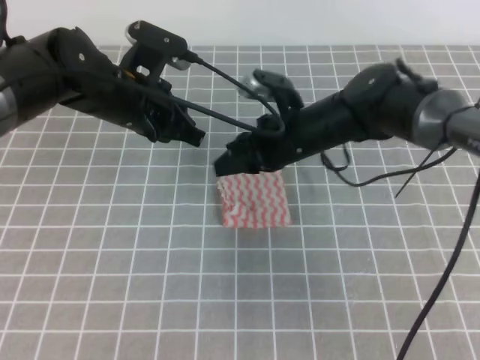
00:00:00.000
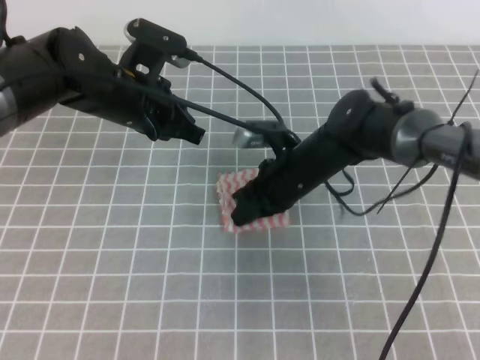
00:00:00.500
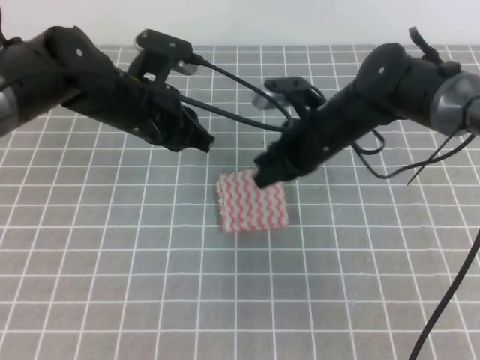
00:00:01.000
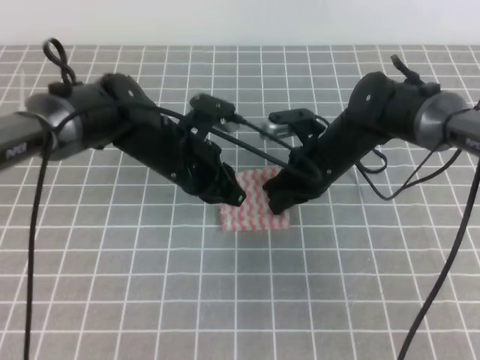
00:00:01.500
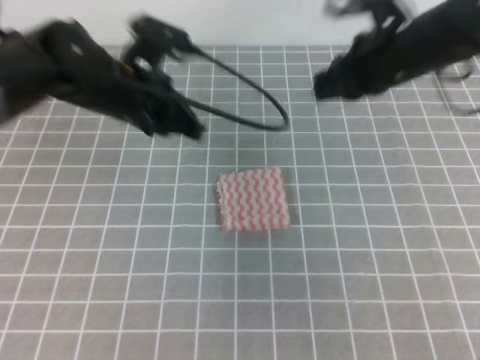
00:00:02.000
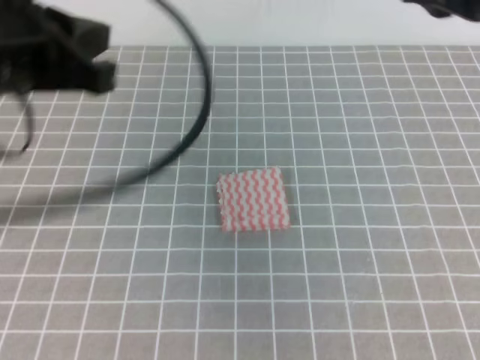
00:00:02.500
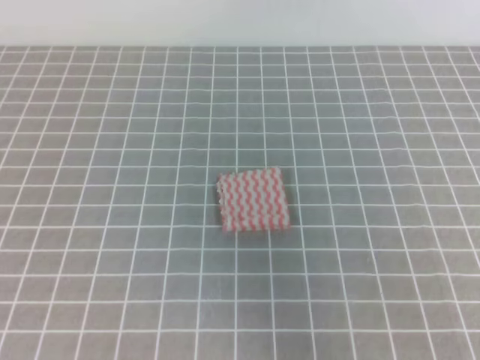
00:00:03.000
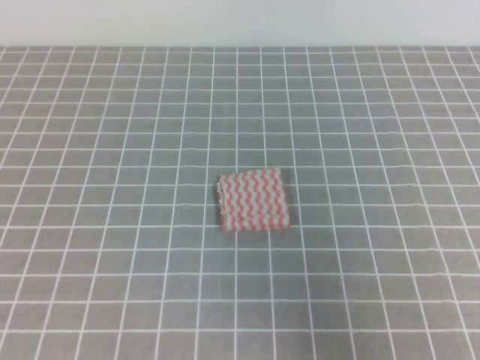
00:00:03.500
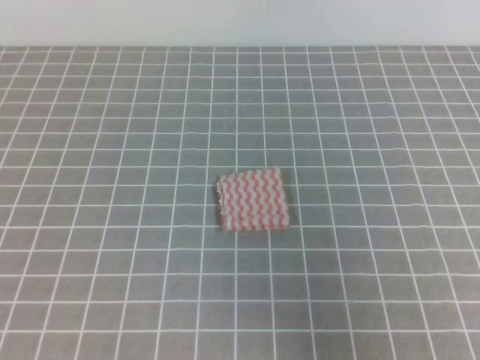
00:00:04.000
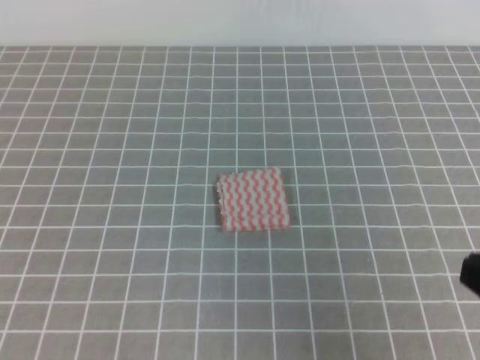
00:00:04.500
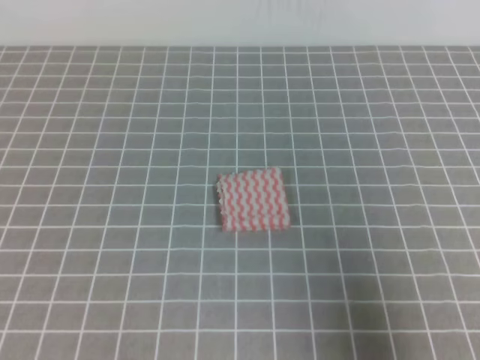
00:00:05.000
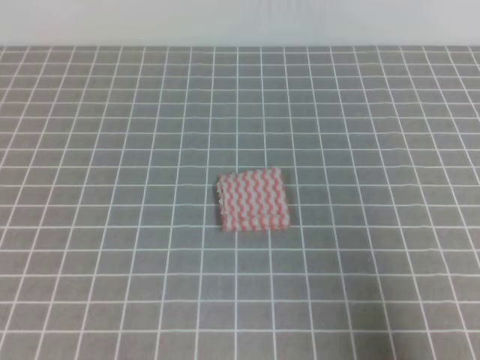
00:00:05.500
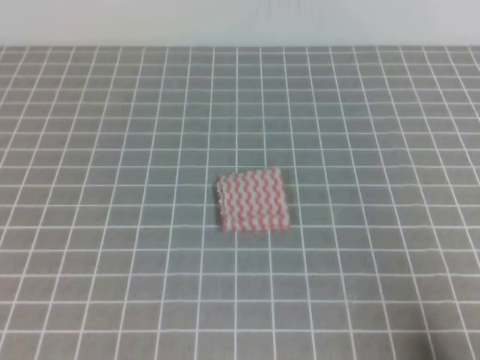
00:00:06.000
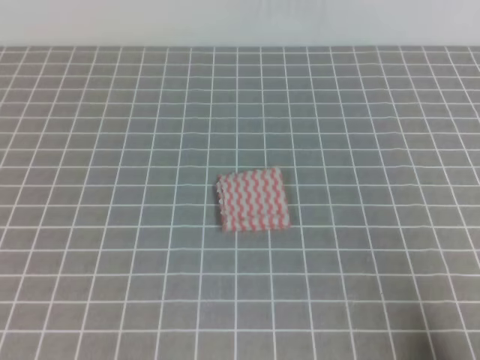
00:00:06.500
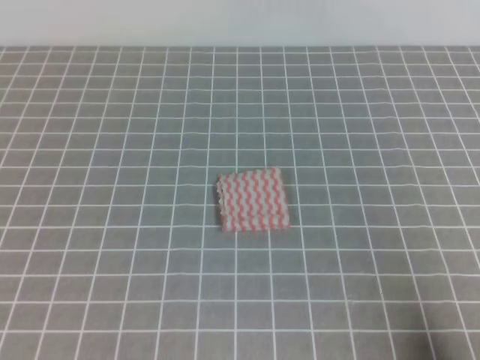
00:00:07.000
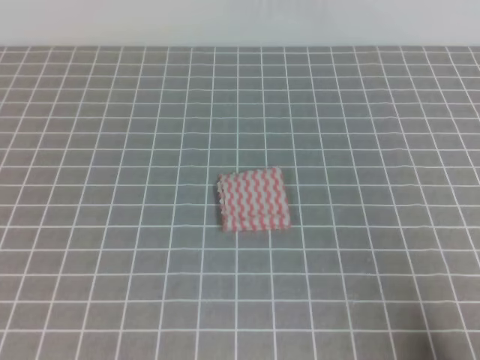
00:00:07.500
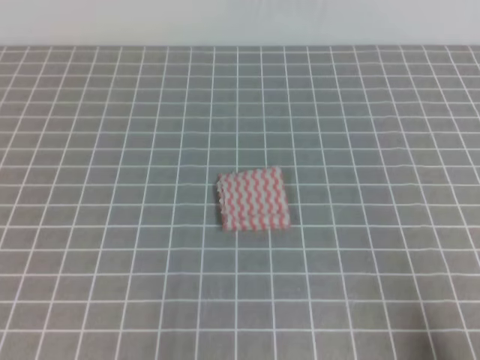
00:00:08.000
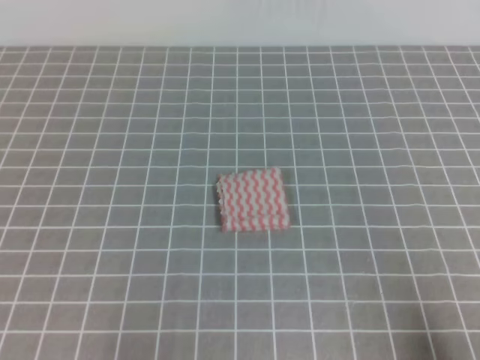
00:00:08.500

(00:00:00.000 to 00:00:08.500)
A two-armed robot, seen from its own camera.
00:00:00.000 - 00:00:02.000: The right gripper shifts about 15 cm upward and to the right, and closes its fingers; the left gripper goes downward and returns, about 5 cm each way.
00:00:02.000 - 00:00:04.000: The left gripper moves backward and to the left, some 35 cm, while the right gripper is displaced backward by about 30 cm.
00:00:04.000 - 00:00:06.500: The right gripper shifts about 15 cm downward.

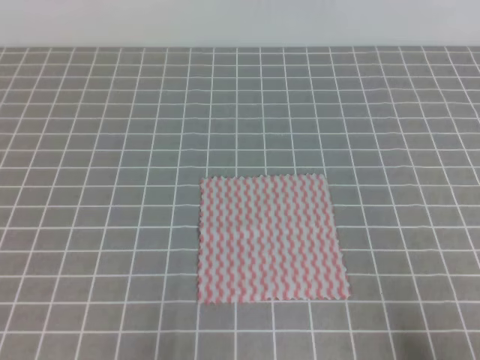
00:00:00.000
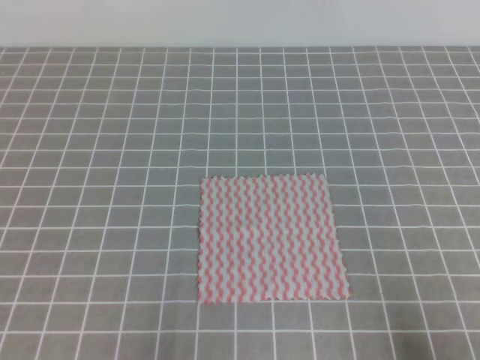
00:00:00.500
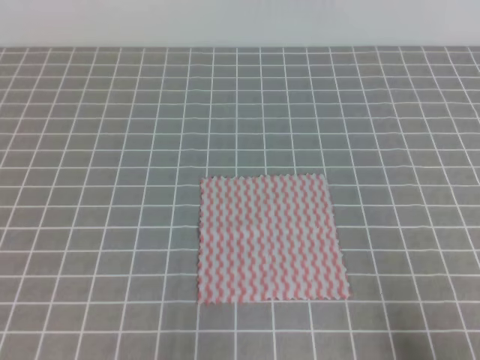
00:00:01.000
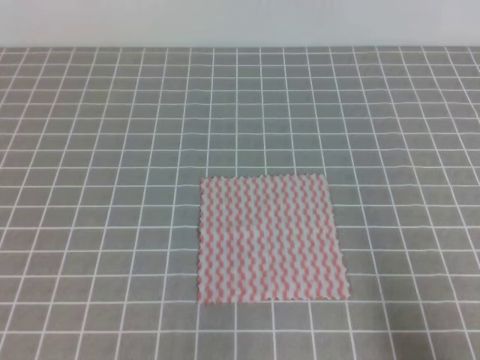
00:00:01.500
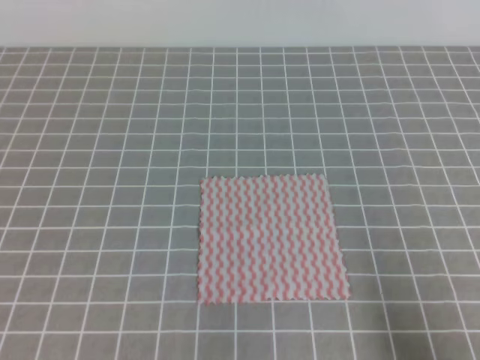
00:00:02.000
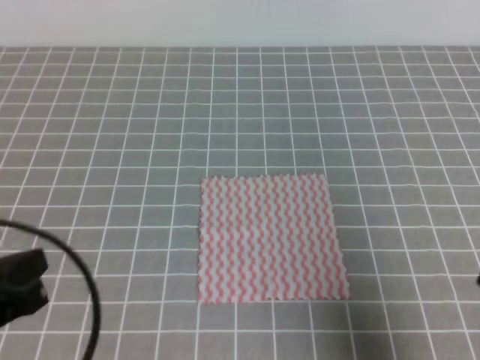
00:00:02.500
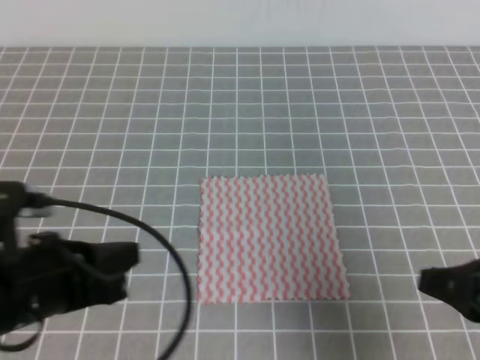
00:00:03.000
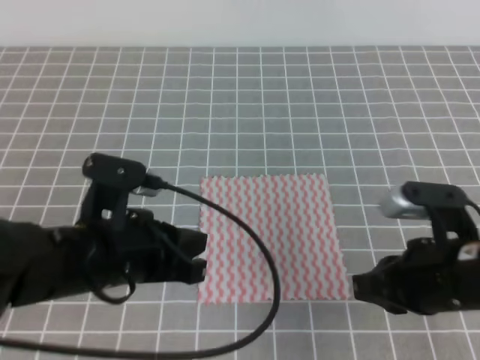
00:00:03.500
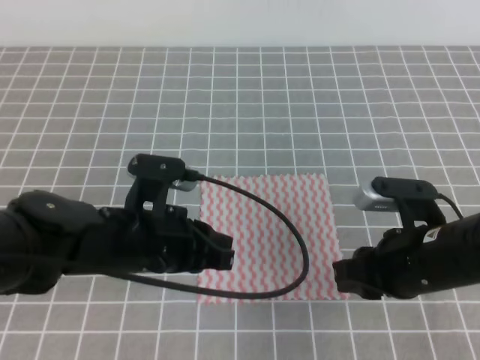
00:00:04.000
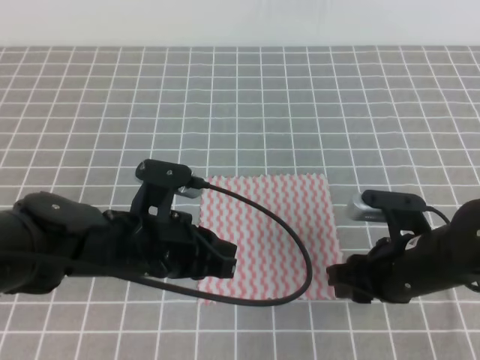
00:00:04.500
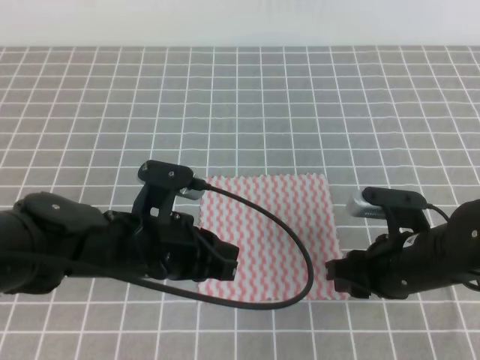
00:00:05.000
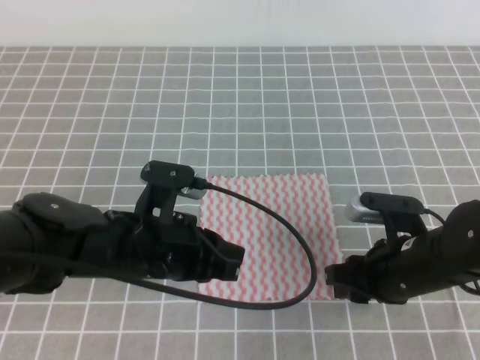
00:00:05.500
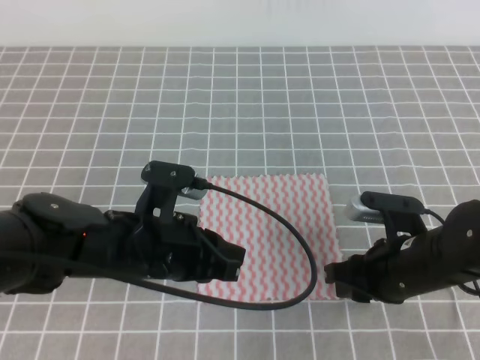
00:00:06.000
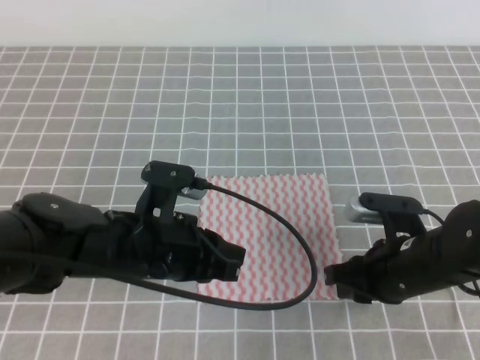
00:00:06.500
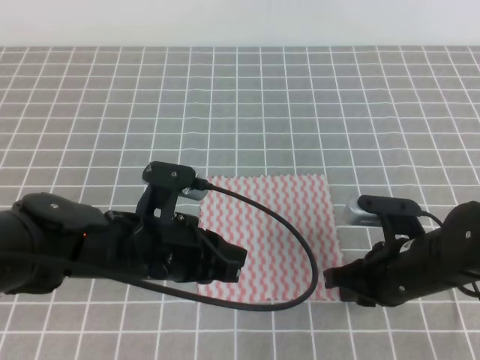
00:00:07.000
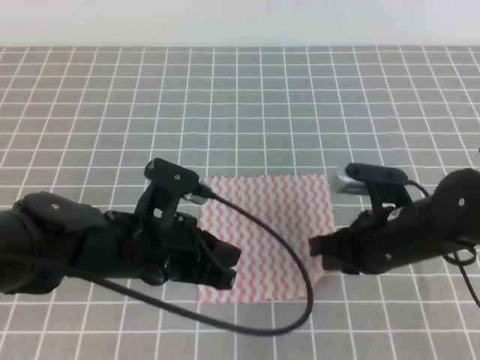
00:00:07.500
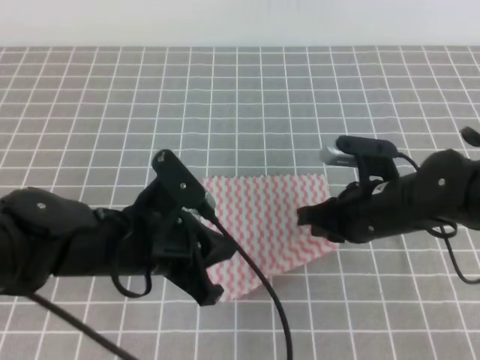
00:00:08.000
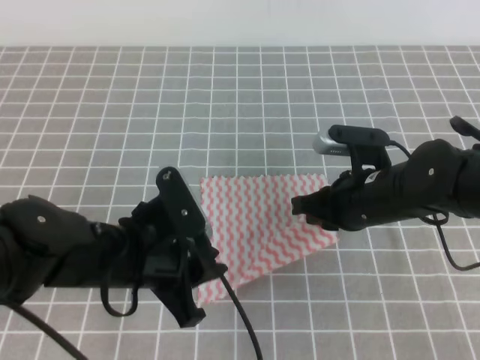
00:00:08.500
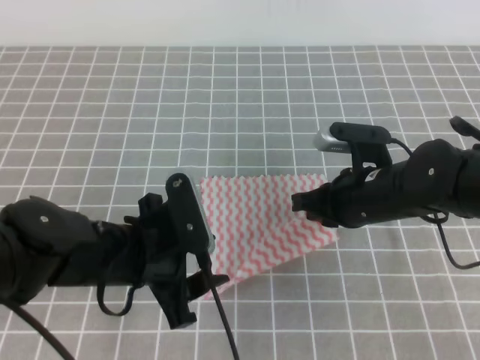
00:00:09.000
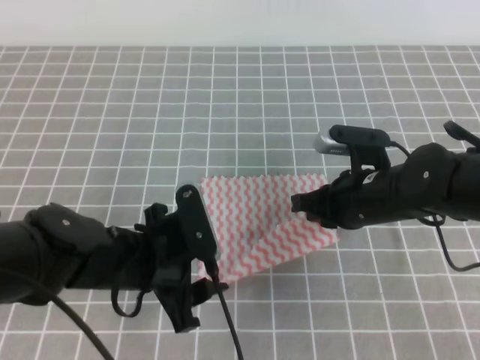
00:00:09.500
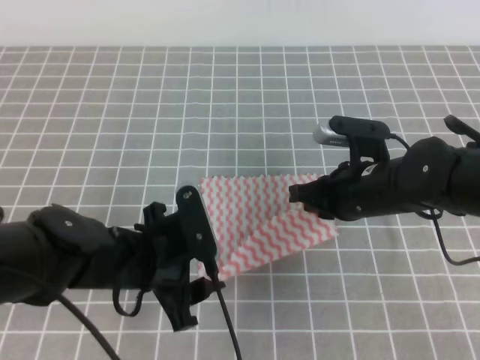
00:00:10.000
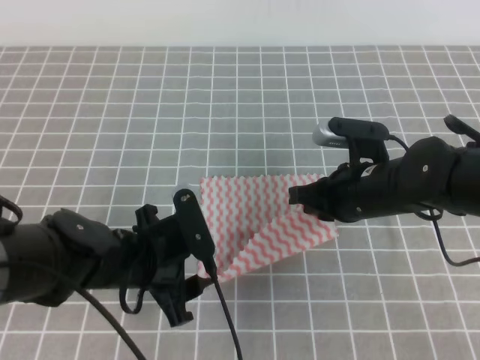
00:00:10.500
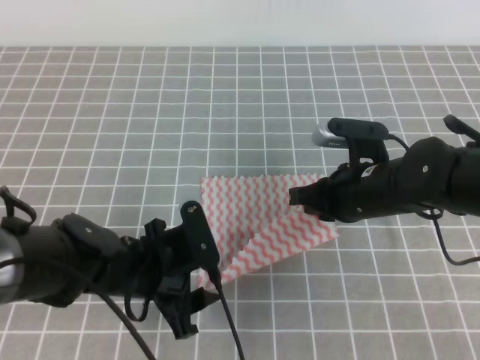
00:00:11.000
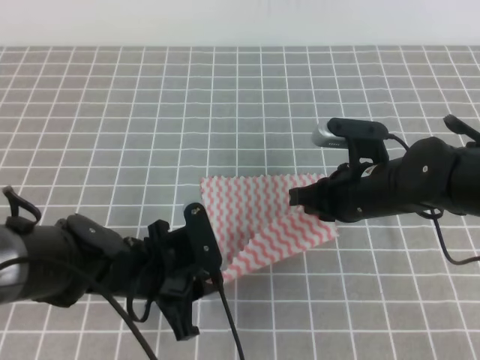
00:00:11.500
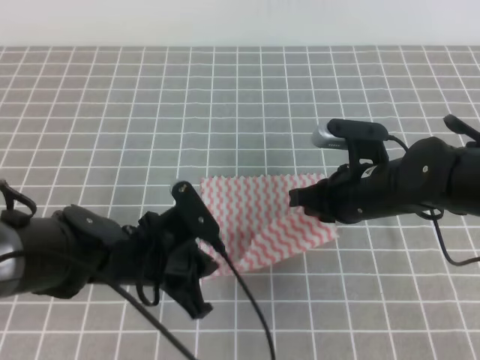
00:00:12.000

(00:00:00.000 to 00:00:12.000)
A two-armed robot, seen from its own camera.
00:00:02.000 - 00:00:04.000: The right gripper is displaced forward and to the left by some 20 cm, and opens its fingers; the left gripper shifts approximately 25 cm forward and to the right.
00:00:04.000 - 00:00:06.000: The right gripper changes place by roughly 5 cm.
00:00:06.000 - 00:00:08.000: The right gripper moves roughly 5 cm, and closes up.
00:00:08.000 - 00:00:10.000: The left gripper opens its fingers.
00:00:10.000 - 00:00:12.000: The left gripper closes.

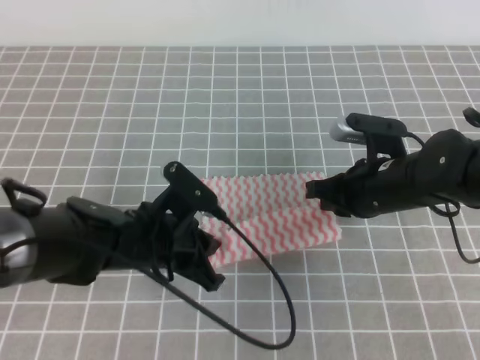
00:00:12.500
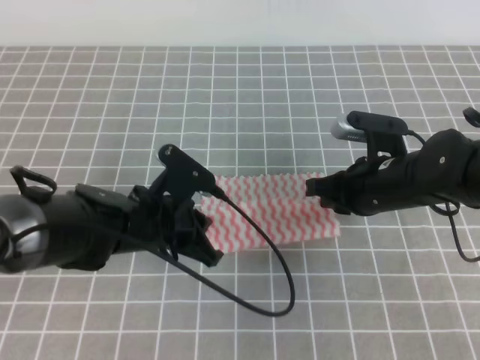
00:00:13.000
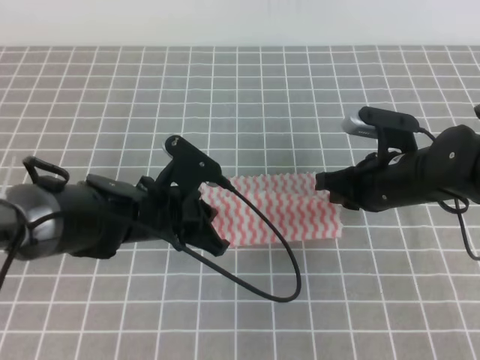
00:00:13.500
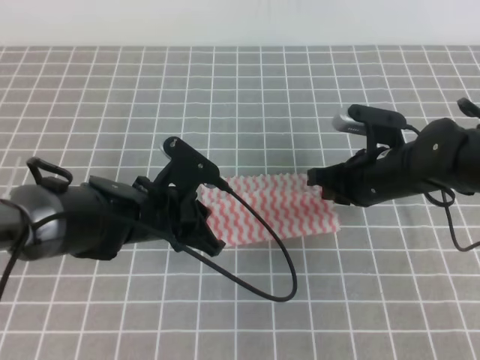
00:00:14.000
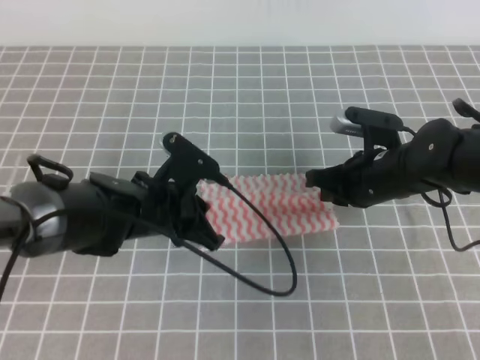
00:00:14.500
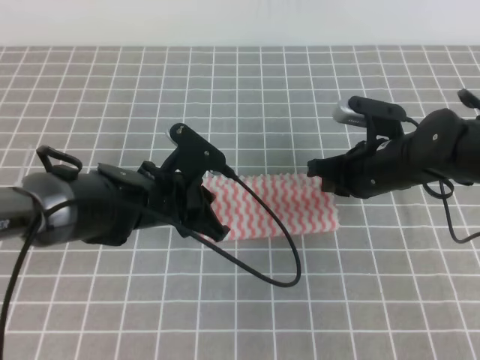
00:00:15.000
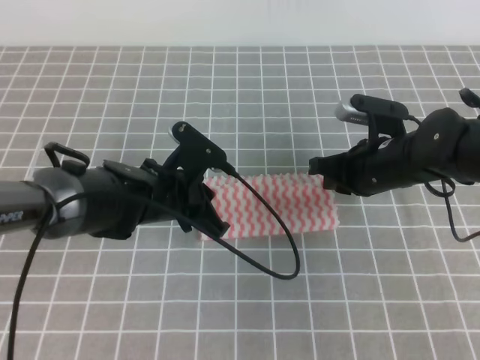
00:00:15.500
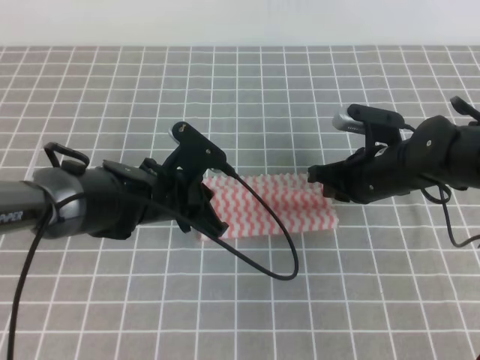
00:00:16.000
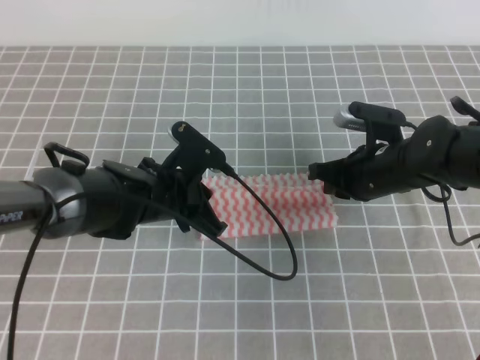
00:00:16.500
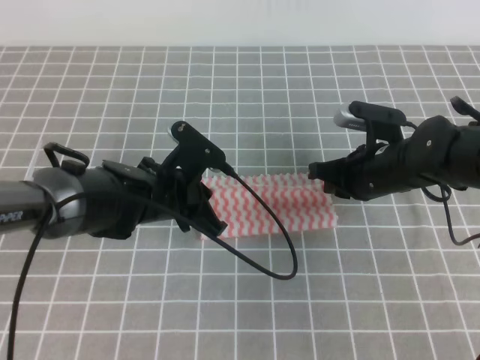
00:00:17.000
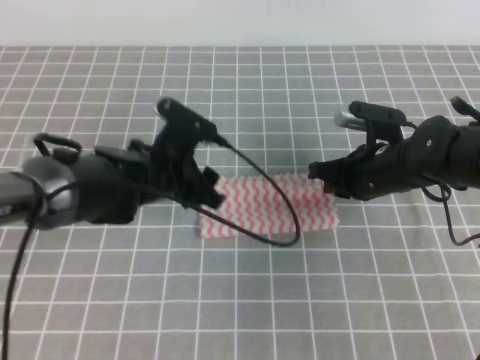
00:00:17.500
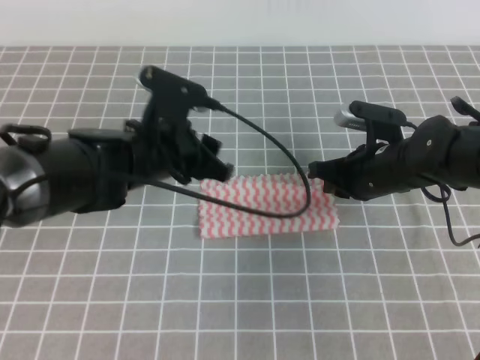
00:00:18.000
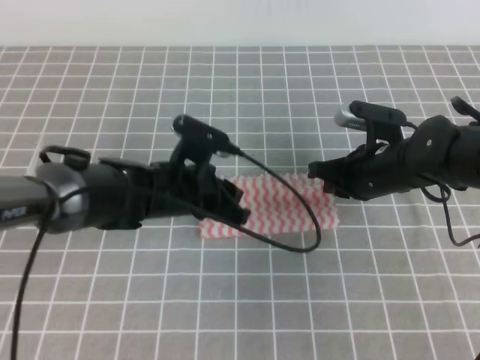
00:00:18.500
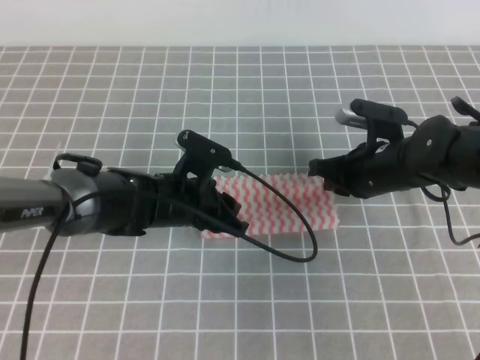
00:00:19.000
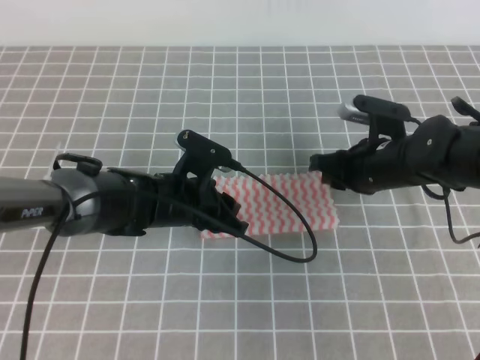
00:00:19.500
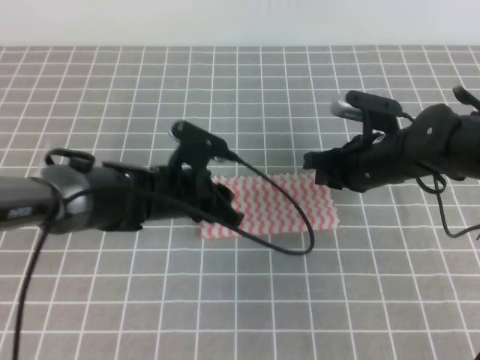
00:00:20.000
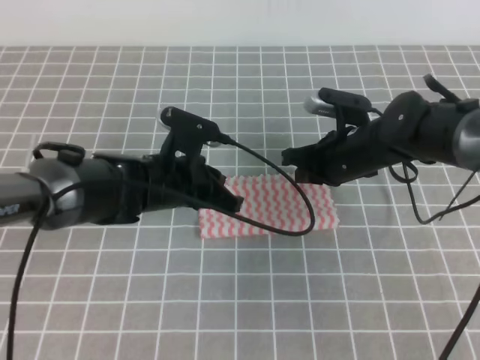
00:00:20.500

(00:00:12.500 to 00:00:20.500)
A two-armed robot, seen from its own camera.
00:00:12.500 - 00:00:14.500: There are only small adjustments of the grippers.
00:00:14.500 - 00:00:16.500: The grippers make only small movements.
00:00:16.500 - 00:00:18.500: The left gripper opens.
00:00:18.500 - 00:00:20.500: The left gripper closes its fingers. The right gripper opens, then closes once more.
